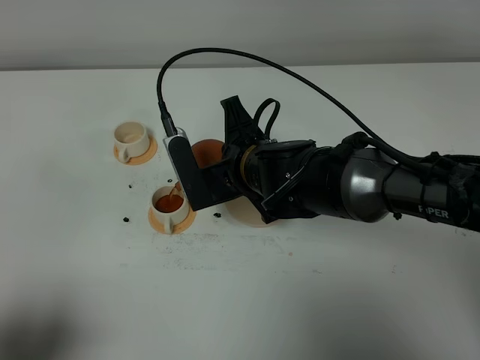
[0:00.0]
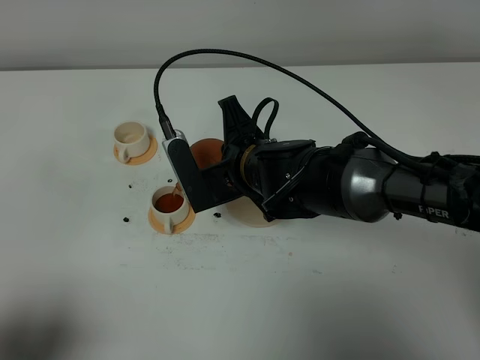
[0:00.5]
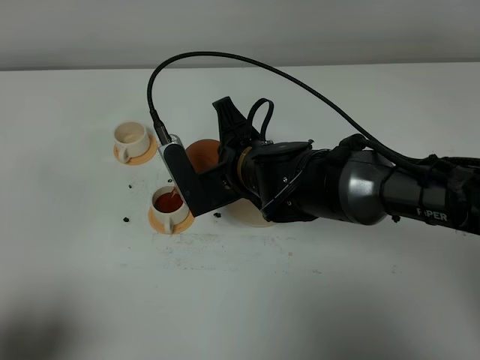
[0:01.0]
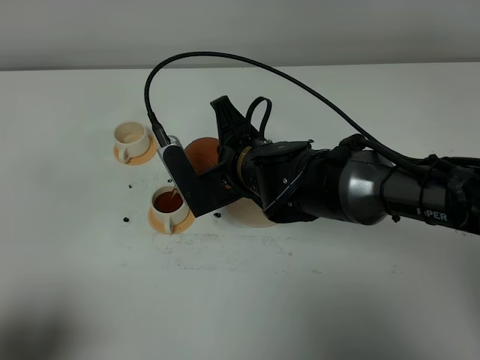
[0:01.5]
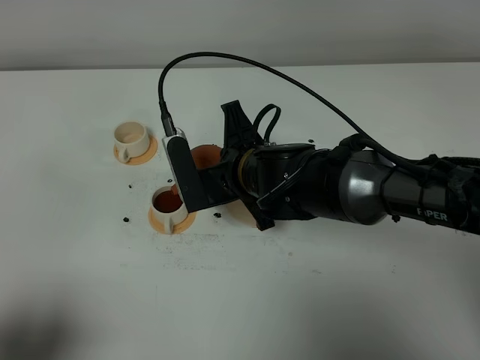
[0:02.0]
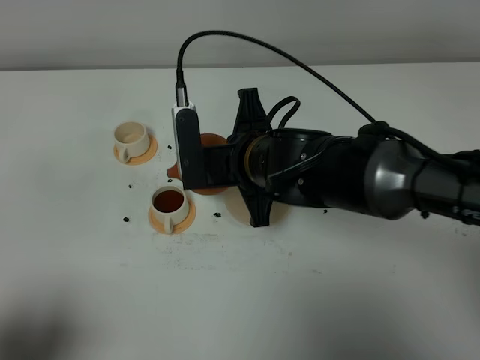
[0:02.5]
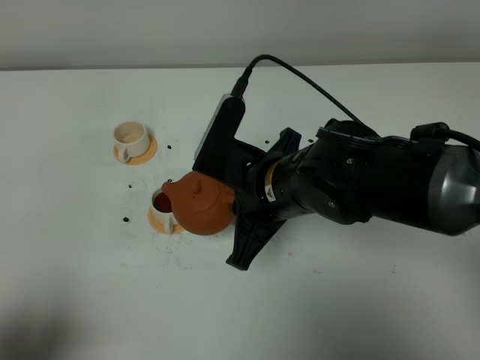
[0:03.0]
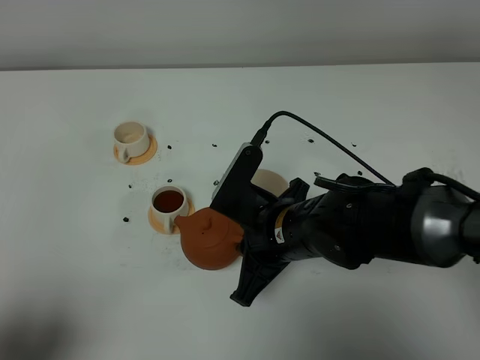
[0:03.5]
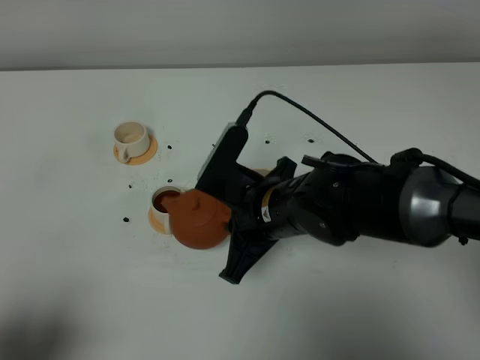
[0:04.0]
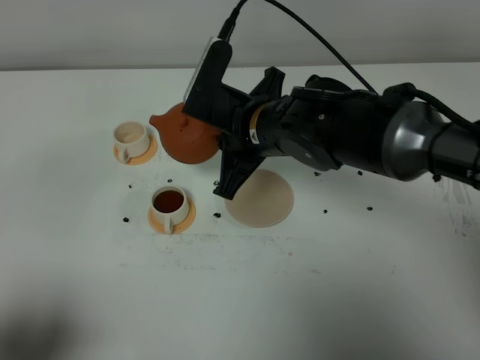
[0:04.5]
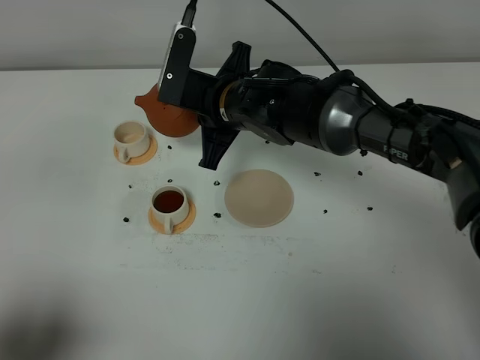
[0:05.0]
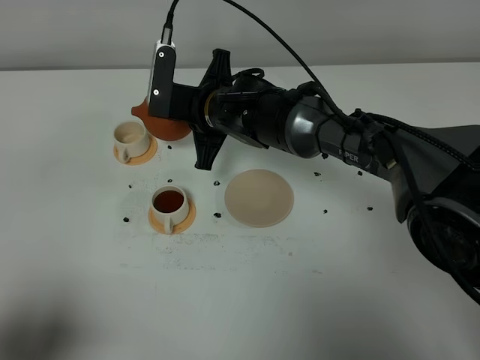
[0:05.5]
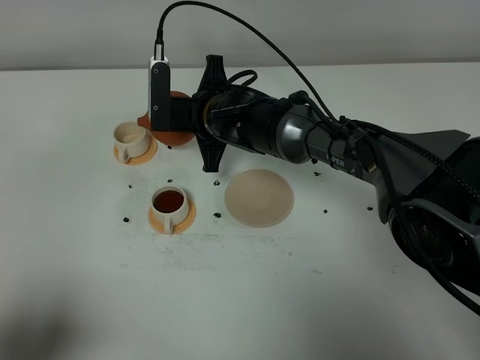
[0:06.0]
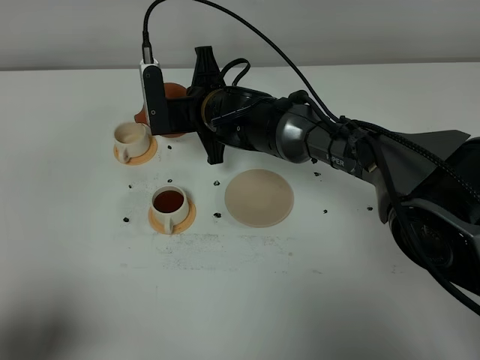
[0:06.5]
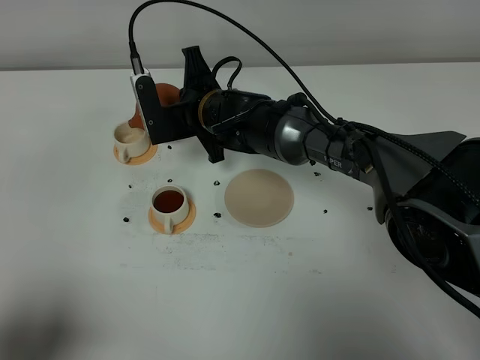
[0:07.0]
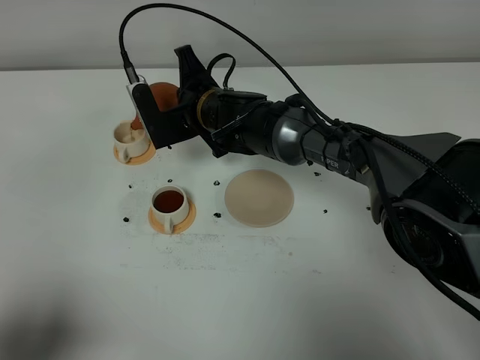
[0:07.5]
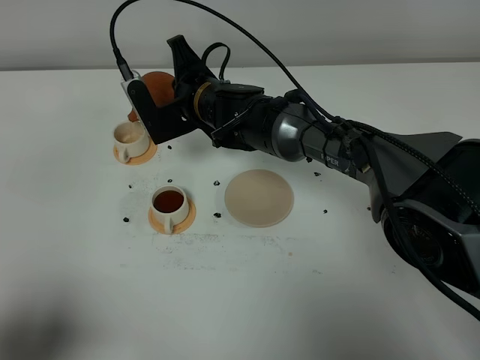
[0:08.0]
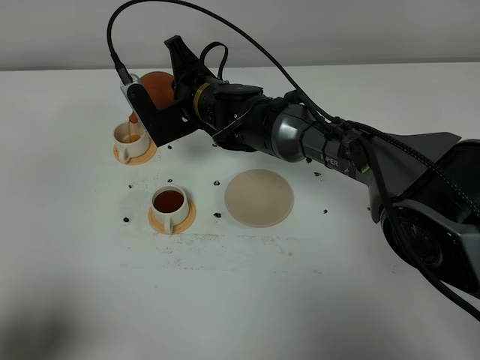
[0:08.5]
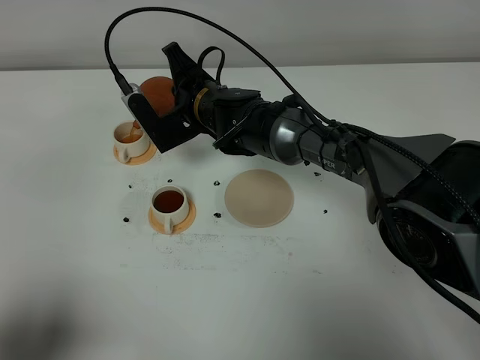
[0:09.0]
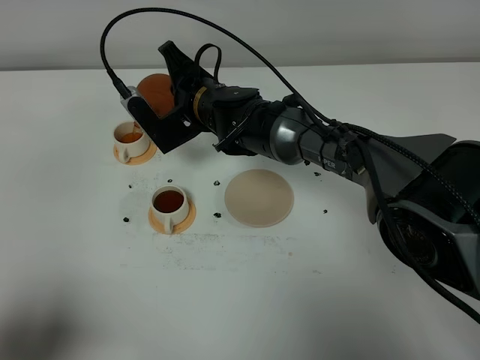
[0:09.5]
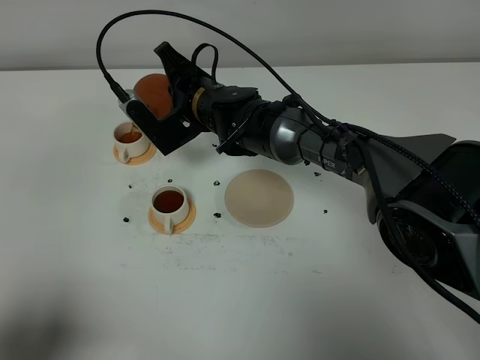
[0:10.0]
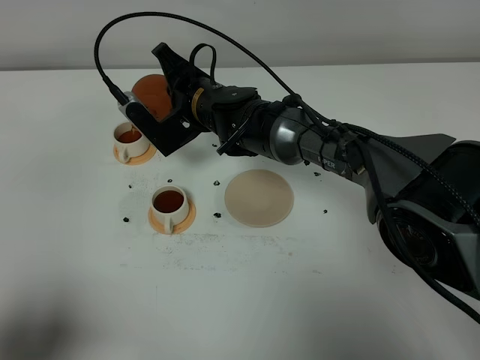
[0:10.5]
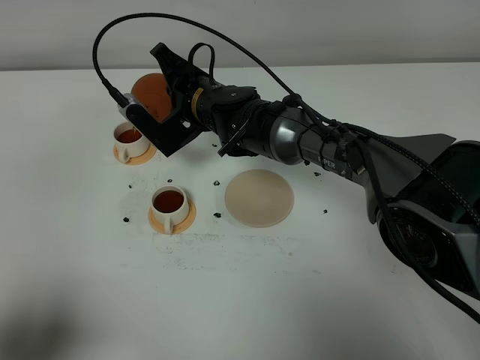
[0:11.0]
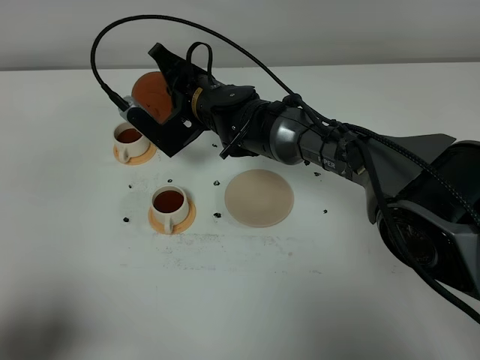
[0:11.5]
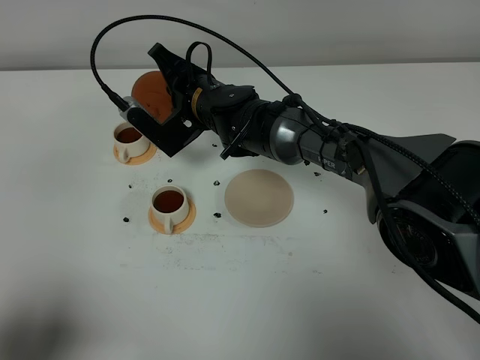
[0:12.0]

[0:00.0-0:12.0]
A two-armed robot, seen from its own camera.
Task of the whole recording: grasp the brown teapot and pour the tea into the two white teacups one by one, put the brown teapot back in its original place.
0:00.0 to 0:02.0: The grippers stay close to where they were, moving slightly.
0:02.0 to 0:04.0: The right gripper shifts by roughly 5 cm.
0:04.0 to 0:06.0: The right gripper goes approximately 15 cm forward and to the left.
0:08.0 to 0:10.0: The grippers stay close to where they were, moving slightly.
0:10.0 to 0:12.0: The grippers stay close to where they were, moving slightly.

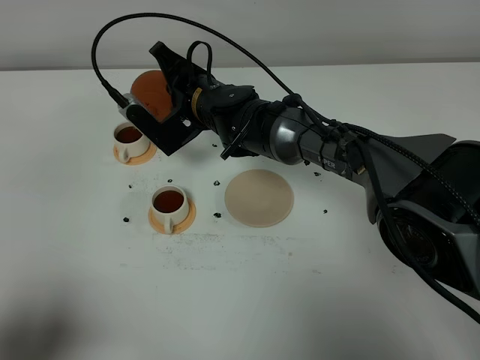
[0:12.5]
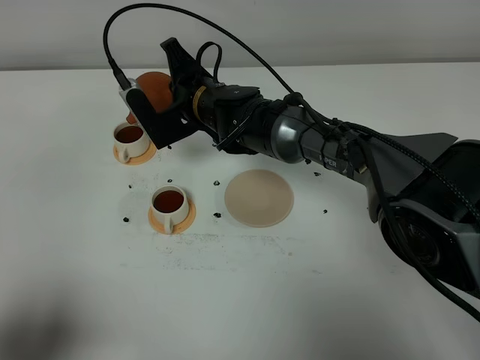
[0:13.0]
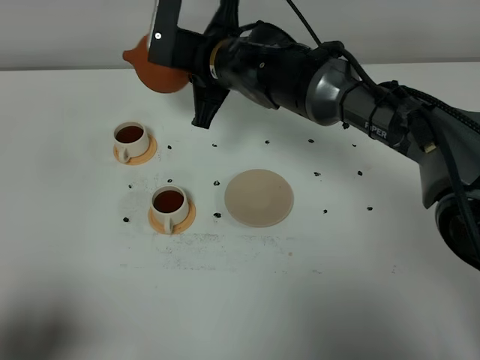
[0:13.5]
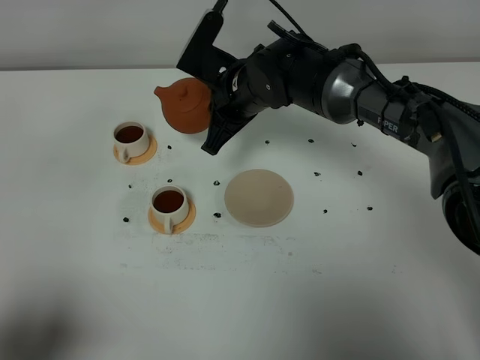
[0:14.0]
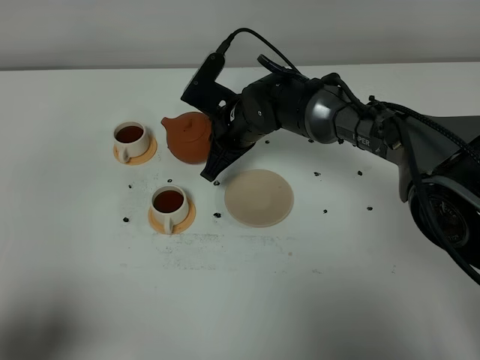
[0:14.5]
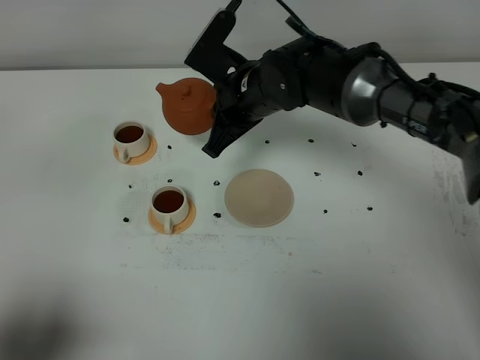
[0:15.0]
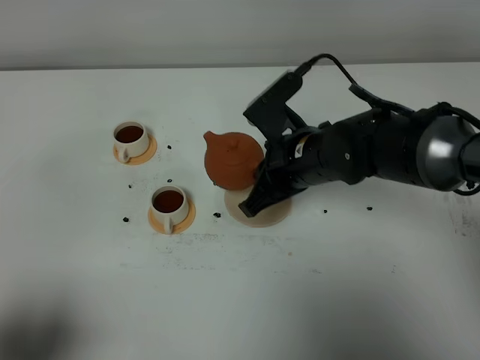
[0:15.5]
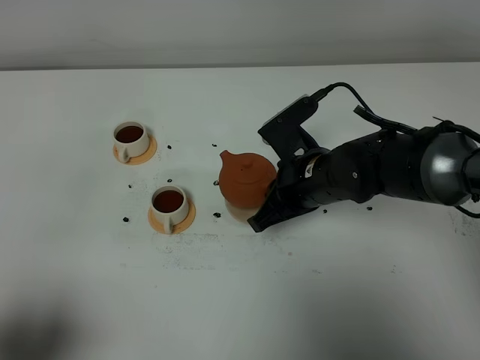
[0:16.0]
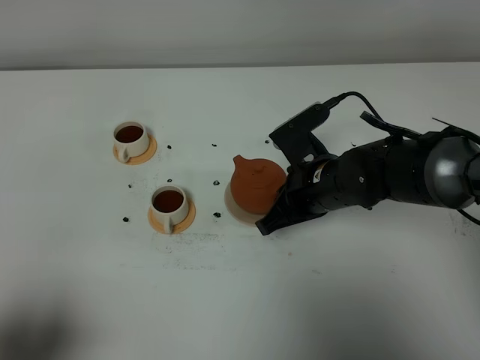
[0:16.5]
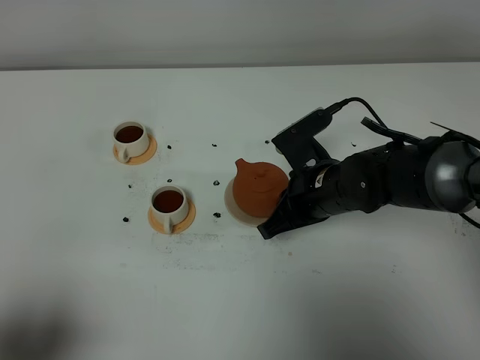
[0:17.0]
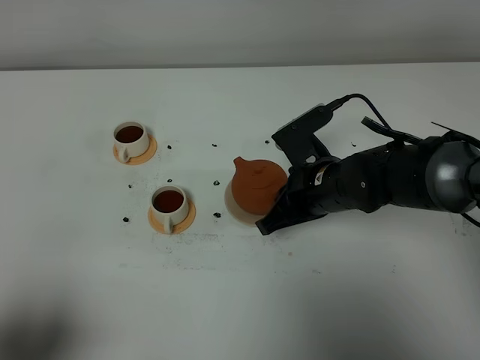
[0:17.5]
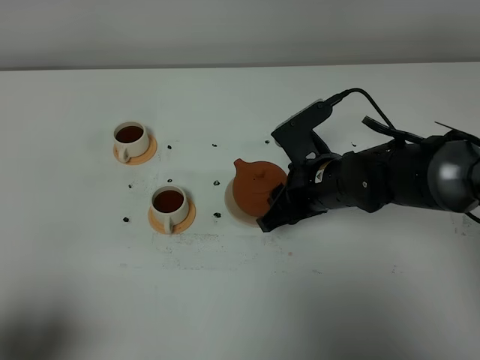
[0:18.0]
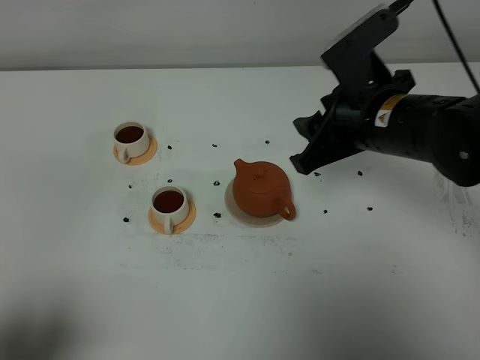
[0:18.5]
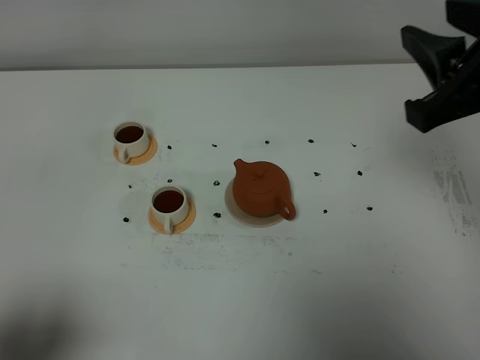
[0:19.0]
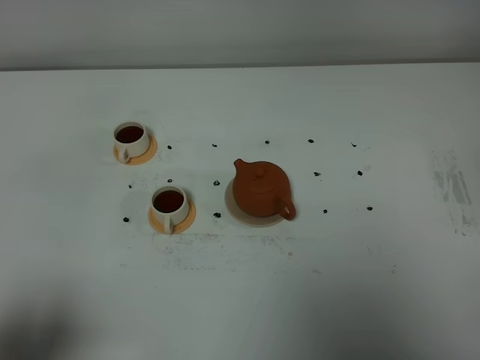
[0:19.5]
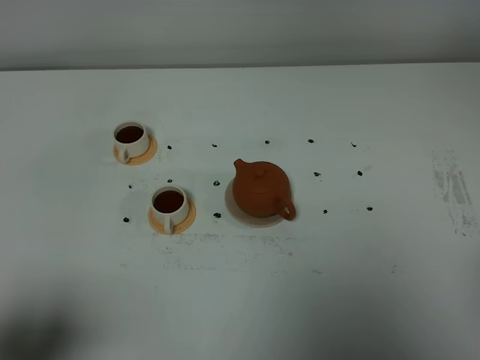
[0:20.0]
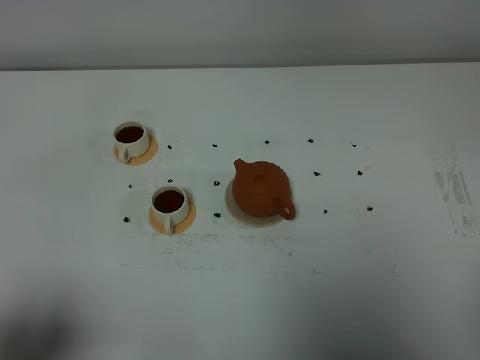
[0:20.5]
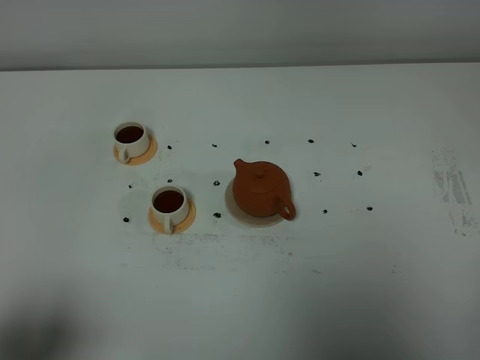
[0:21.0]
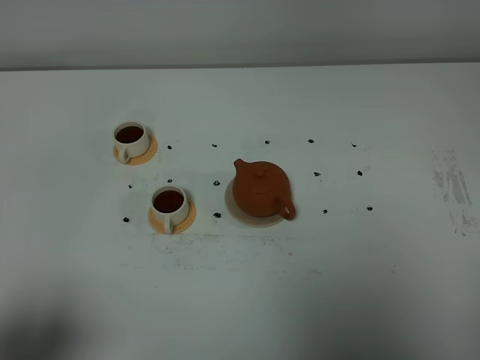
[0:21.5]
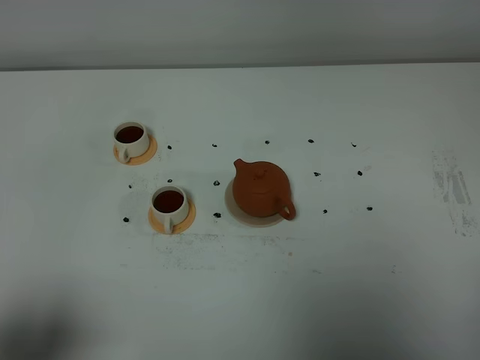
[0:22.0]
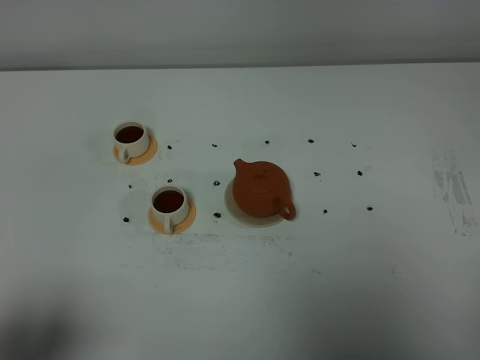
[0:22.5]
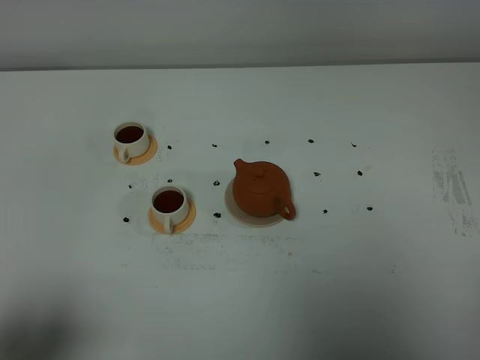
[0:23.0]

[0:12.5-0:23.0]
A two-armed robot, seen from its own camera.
Task of the whole recording: grasp the brown teapot and pour the tea into the two white teacups one by one, put the brown teapot back in its original place.
0:12.5 to 0:14.5: The right gripper moves approximately 5 cm upward and comes back.
0:14.5 to 0:16.5: The right gripper is displaced backward and to the right by some 15 cm.
0:16.5 to 0:19.0: The right gripper travels upward, to the right and backward by some 30 cm, and opens its fingers.
0:19.0 to 0:21.0: The right gripper is displaced backward, downward and to the right by about 25 cm.
0:21.0 to 0:23.0: The two grippers keep their place.

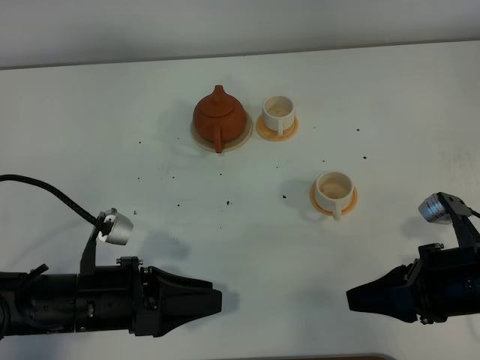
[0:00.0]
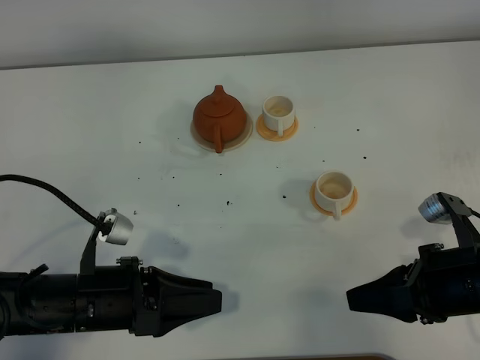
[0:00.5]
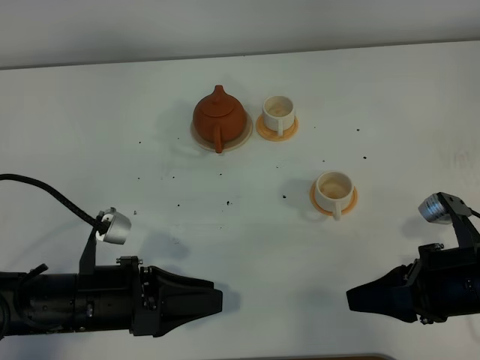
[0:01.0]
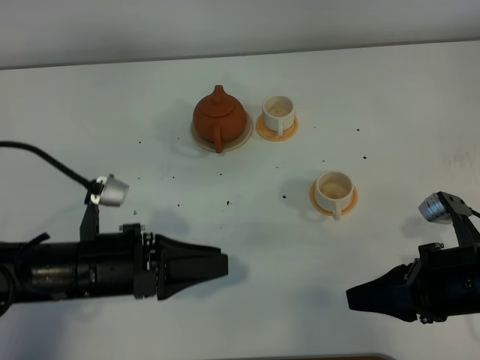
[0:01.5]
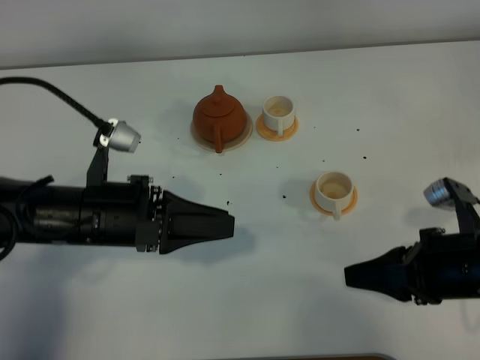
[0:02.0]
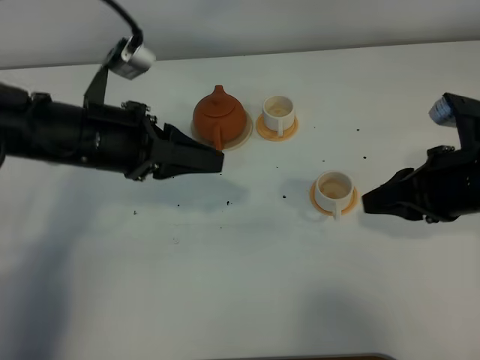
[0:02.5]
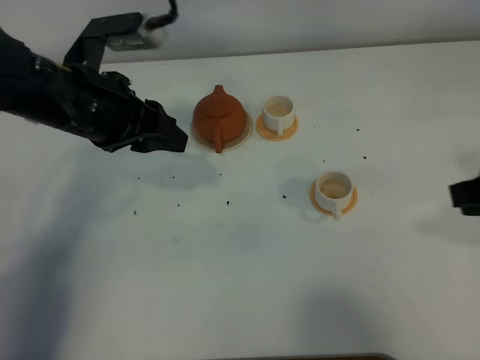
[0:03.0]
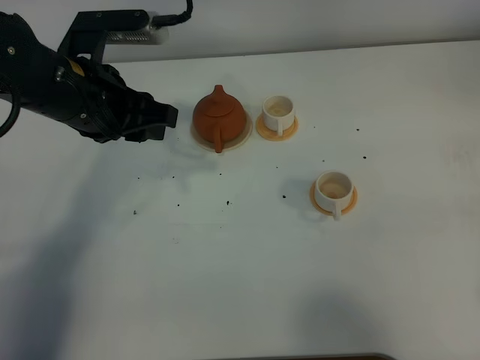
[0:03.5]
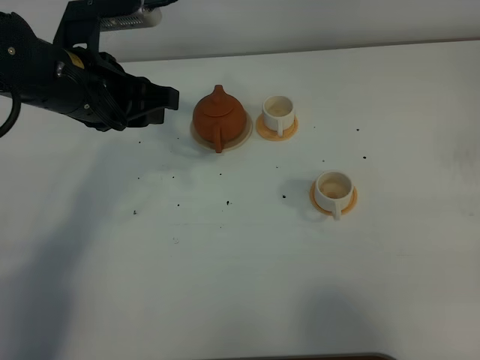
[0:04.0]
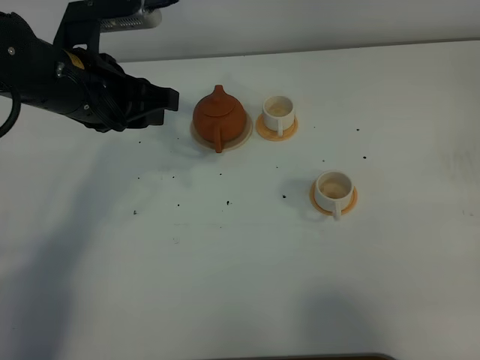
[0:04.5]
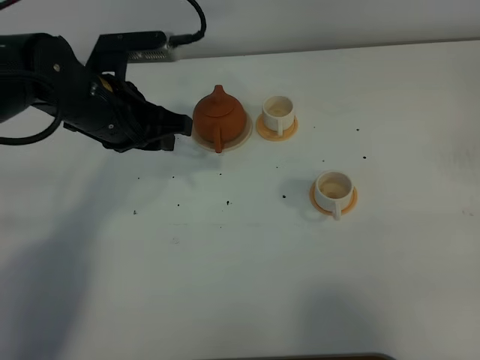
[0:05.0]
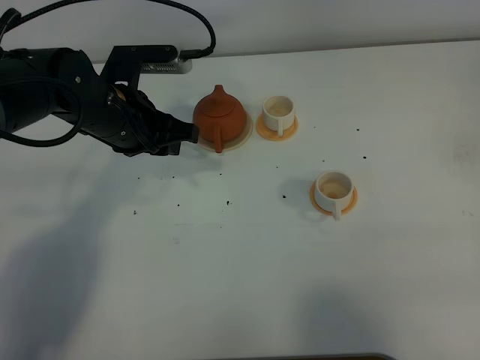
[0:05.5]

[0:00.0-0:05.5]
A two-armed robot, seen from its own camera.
Task of the whole recording: grasp the brown teapot and pour the tea into the two white teacups one by one, put the brown teapot back in its original place.
0:00.0 to 0:02.0: The left gripper goes some 10 cm forward and upward.
0:02.0 to 0:03.5: The right gripper travels upward, backward and to the right by some 20 cm. Meanwhile the left gripper heads forward and upward, covering approximately 15 cm.
0:03.5 to 0:05.5: The left gripper is displaced downward by some 5 cm. Meanwhile the right gripper travels backward and downward by approximately 10 cm.
